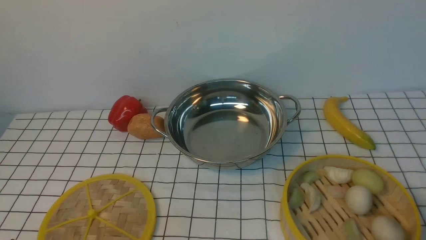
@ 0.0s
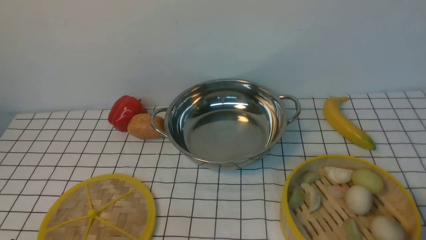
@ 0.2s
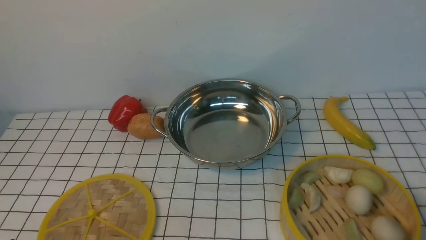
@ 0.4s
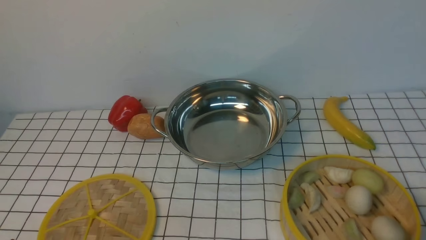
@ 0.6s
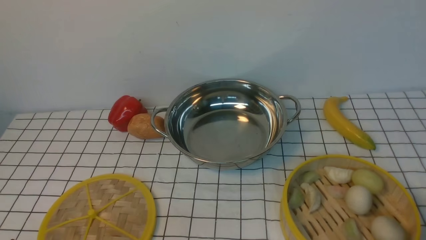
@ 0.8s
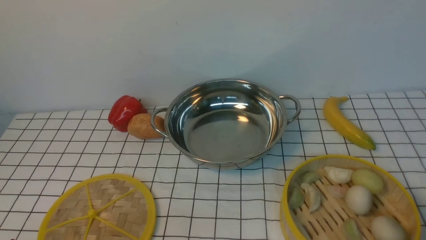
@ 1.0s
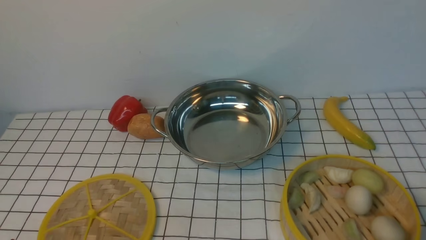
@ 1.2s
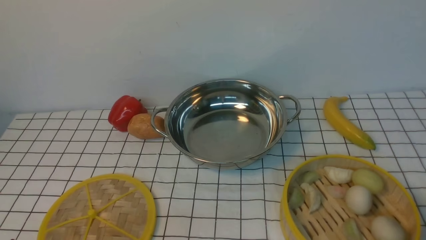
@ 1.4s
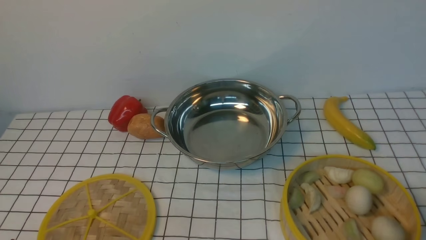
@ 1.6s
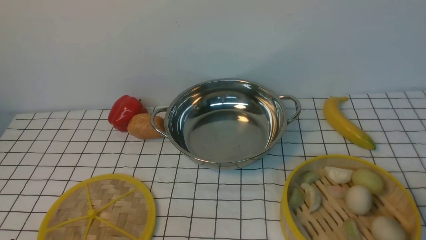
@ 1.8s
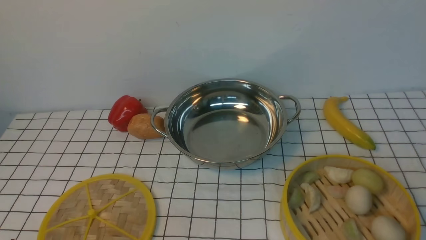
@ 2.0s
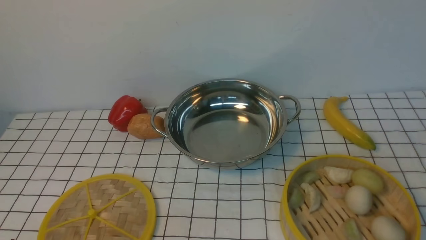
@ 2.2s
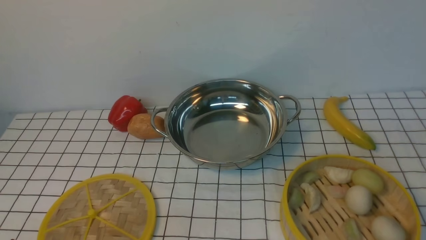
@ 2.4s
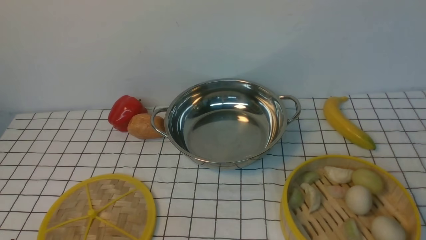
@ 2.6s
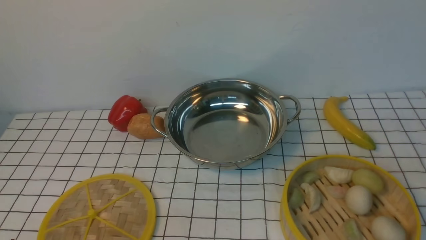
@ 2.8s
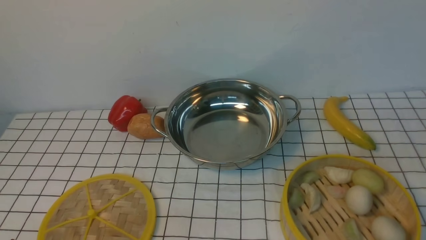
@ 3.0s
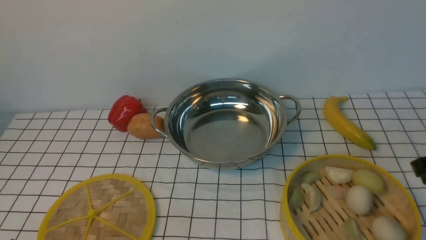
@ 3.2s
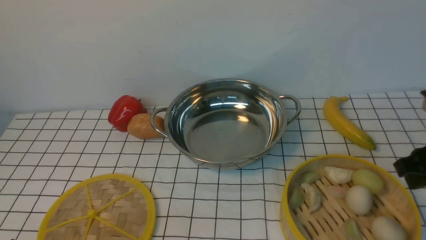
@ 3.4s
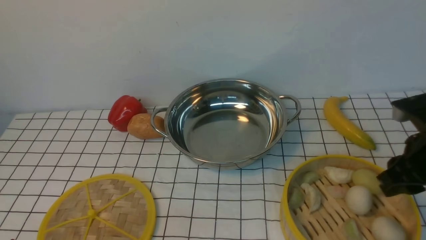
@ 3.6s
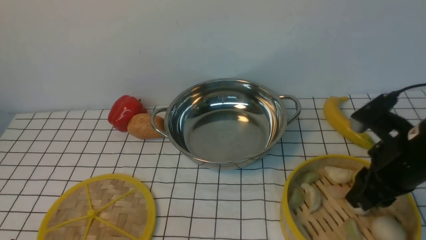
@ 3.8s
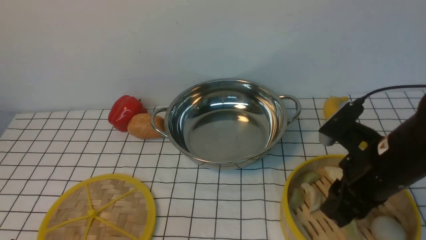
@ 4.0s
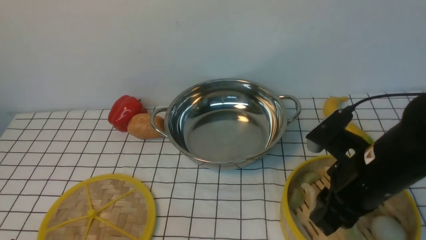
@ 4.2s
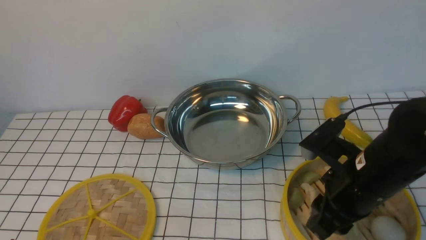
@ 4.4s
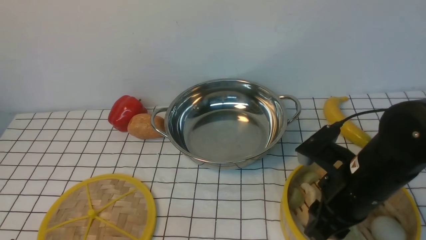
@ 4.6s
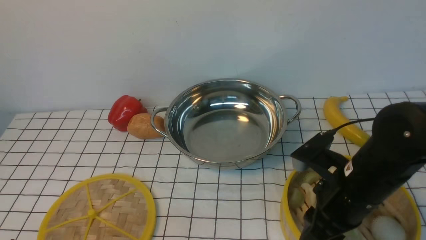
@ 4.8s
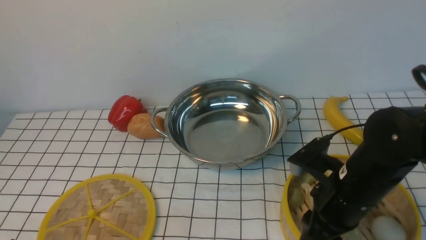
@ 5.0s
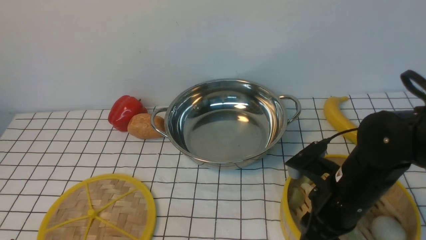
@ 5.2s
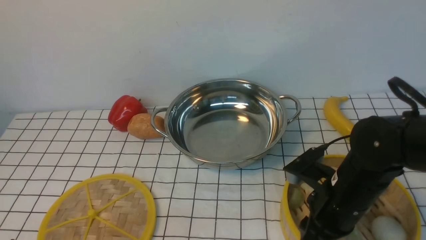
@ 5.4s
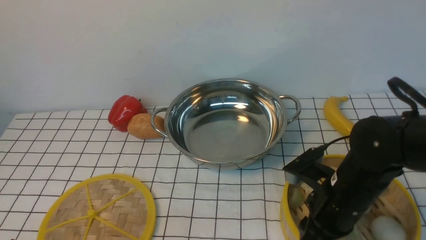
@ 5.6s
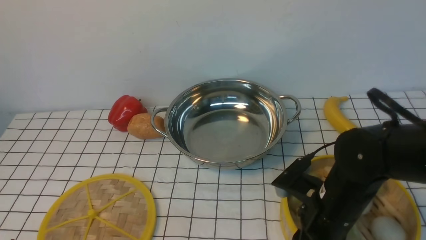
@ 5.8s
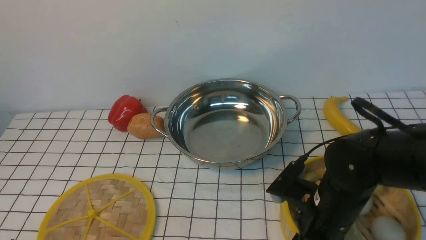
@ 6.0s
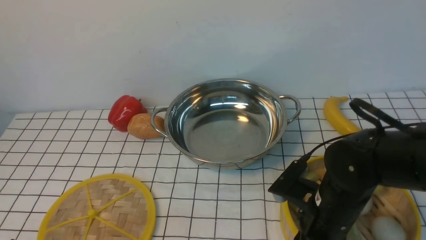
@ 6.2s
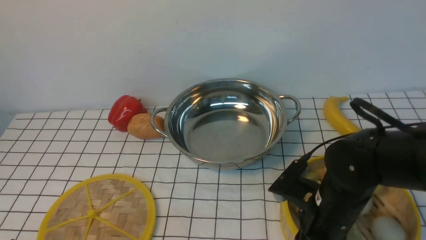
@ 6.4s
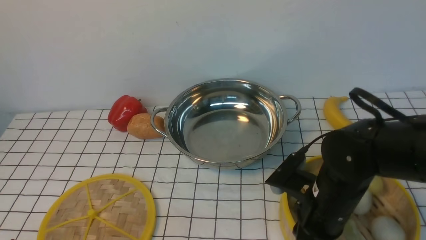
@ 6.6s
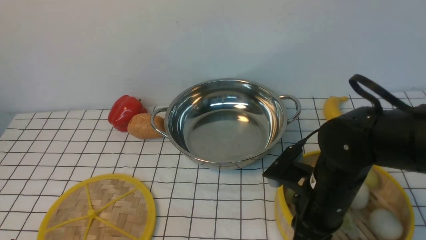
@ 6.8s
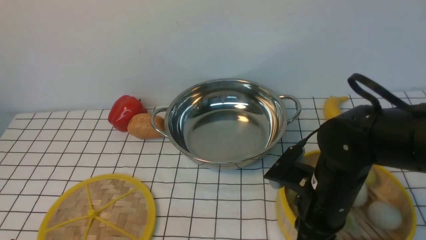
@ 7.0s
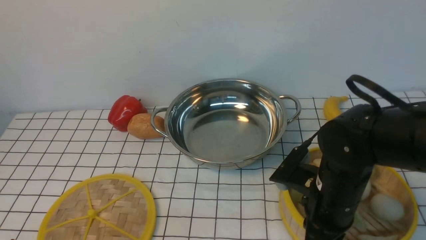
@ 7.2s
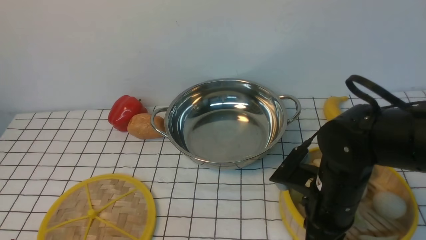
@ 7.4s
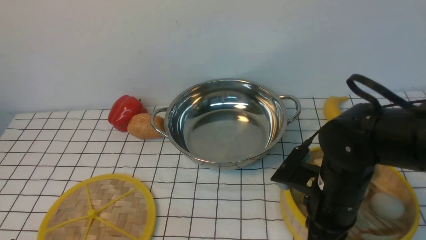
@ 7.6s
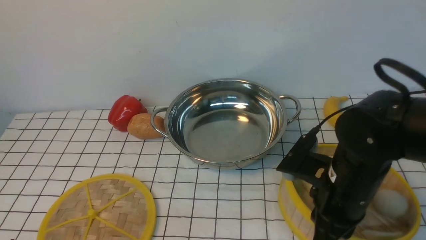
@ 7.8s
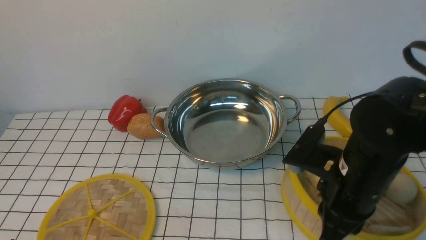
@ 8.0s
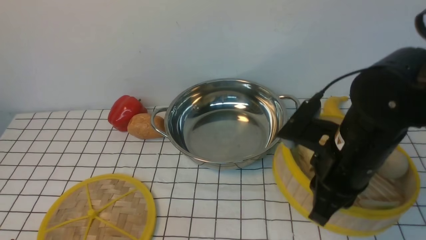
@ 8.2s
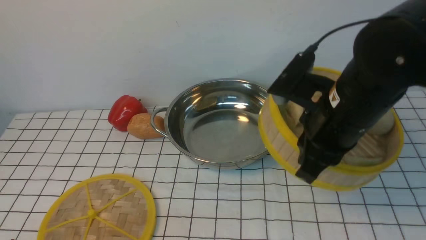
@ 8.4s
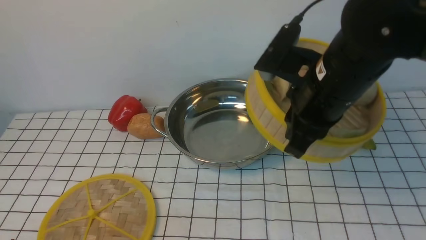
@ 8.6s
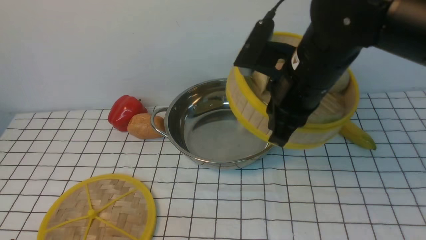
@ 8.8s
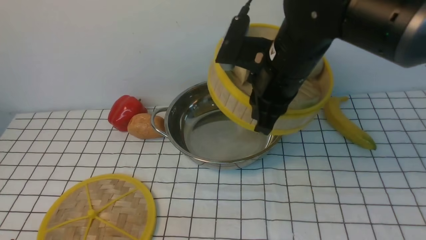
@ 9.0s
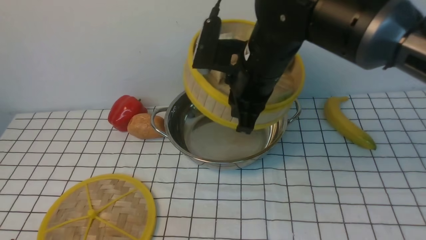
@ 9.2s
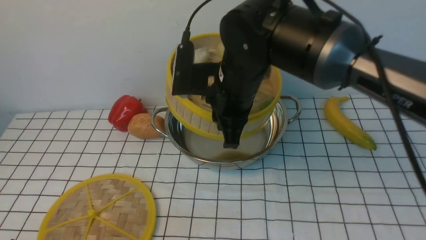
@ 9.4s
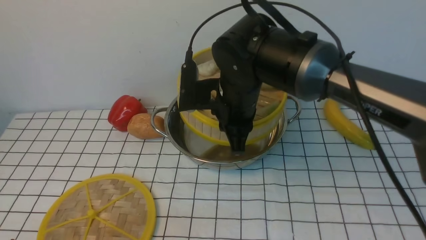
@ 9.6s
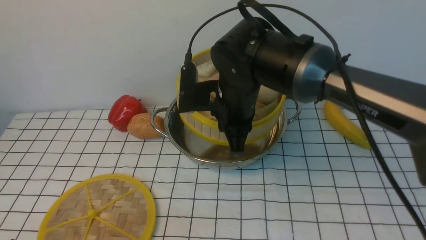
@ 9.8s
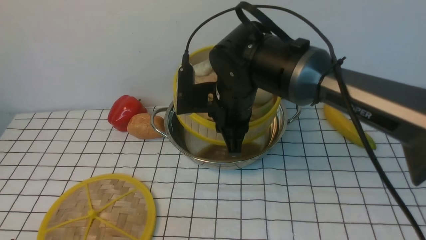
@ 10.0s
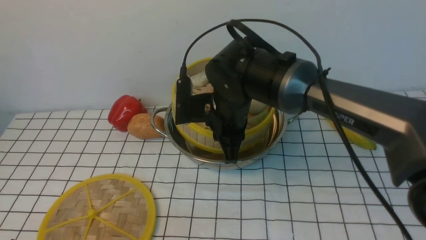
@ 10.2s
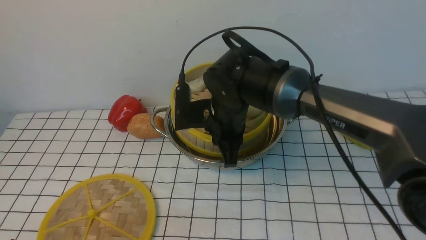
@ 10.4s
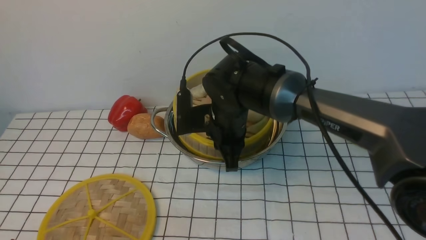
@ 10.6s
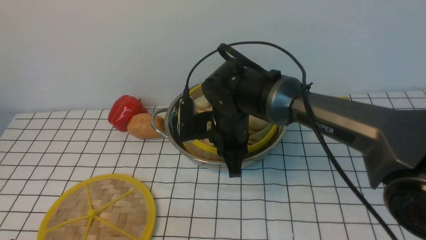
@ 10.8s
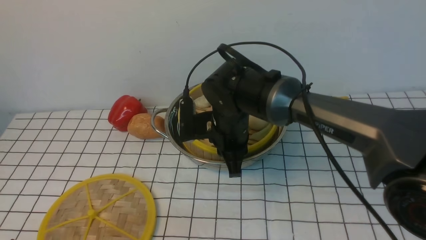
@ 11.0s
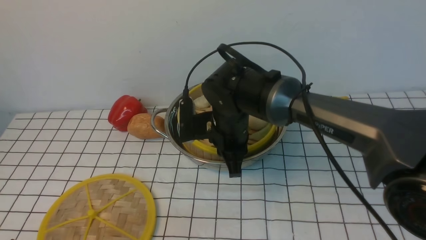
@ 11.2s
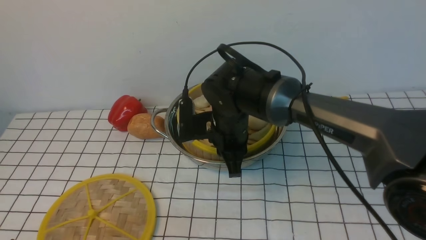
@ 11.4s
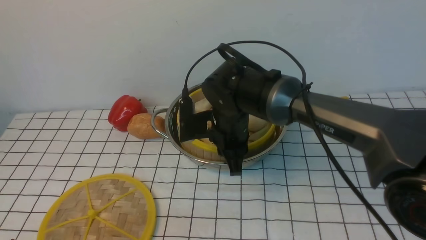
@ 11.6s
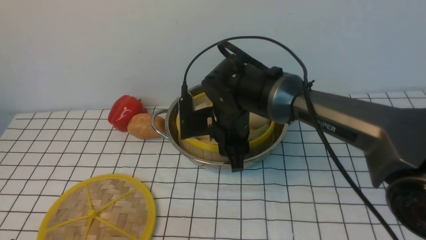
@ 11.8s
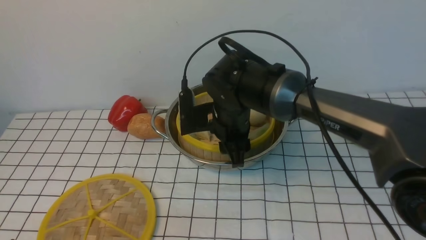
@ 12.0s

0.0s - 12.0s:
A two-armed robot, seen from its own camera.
Task of the whole recording: place the steamer in the pot on the white tablecloth, and put the lid on the steamer.
Step, 0.0s - 8.2s: use the right arm to lift the steamer closest to it.
3.0s - 4.4s: The right gripper shifts approximately 15 cm to the left and downward.
4.4s - 6.0s: The right gripper heads downward, covering some 5 cm.
6.0s - 7.6s: The right gripper closes its fingers.
7.6s - 9.0s: The right gripper moves upward, forward and to the left, about 15 cm.
9.0s - 10.4s: The right gripper moves downward and to the left, approximately 15 cm.
10.4s - 12.0s: The right gripper opens up.

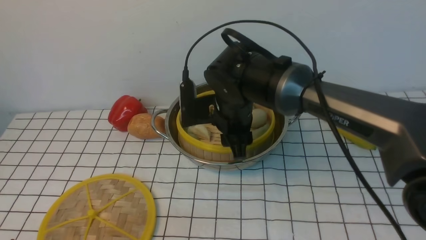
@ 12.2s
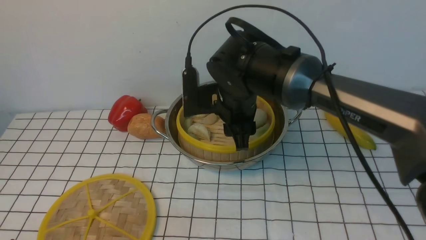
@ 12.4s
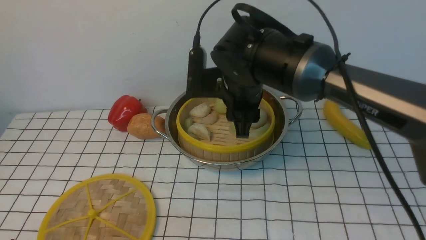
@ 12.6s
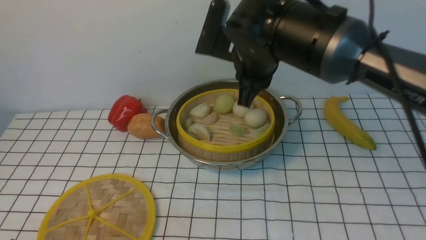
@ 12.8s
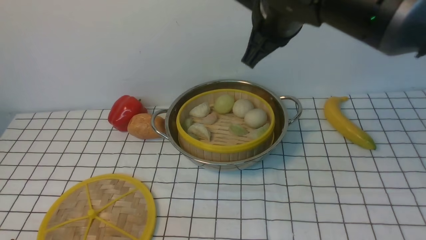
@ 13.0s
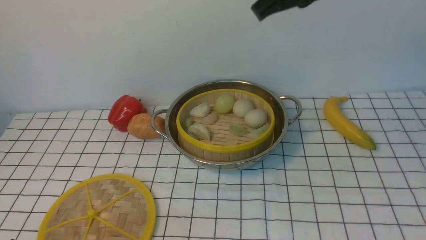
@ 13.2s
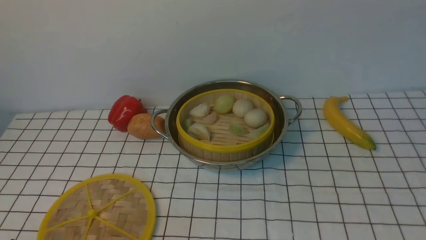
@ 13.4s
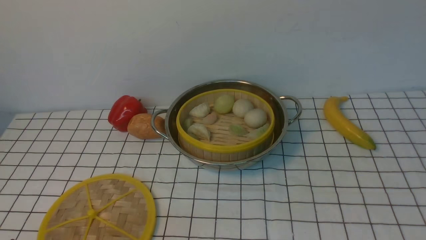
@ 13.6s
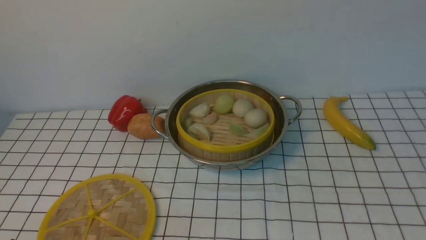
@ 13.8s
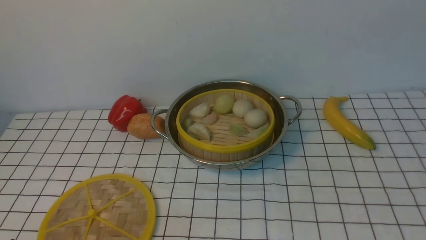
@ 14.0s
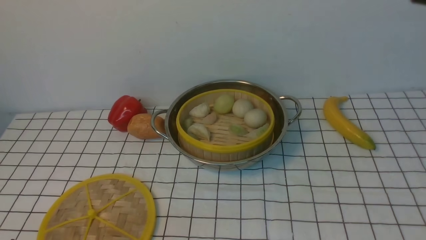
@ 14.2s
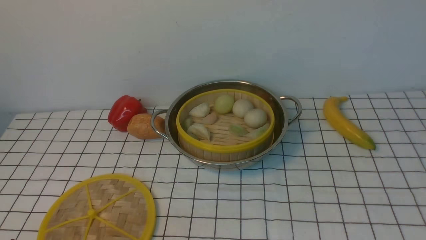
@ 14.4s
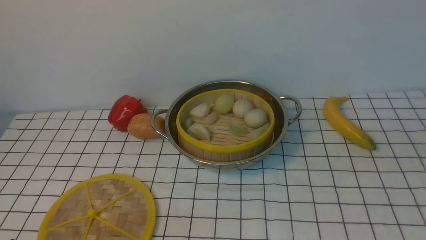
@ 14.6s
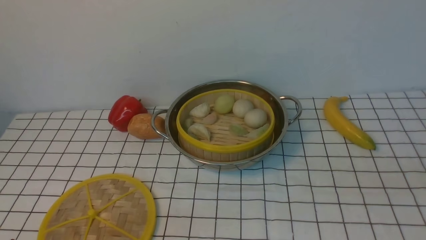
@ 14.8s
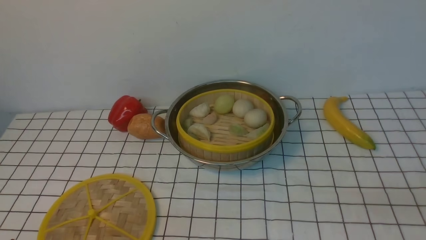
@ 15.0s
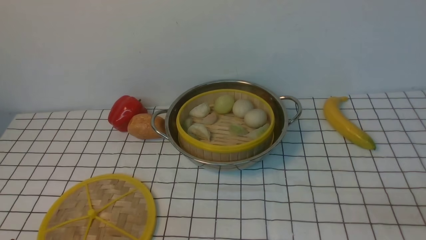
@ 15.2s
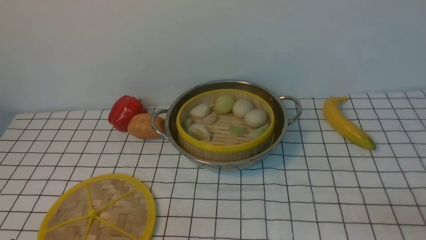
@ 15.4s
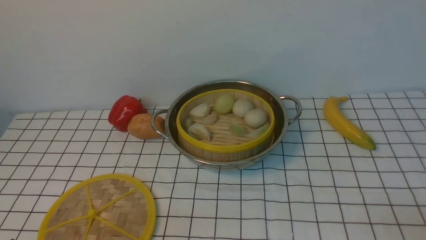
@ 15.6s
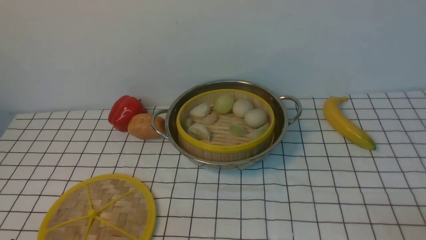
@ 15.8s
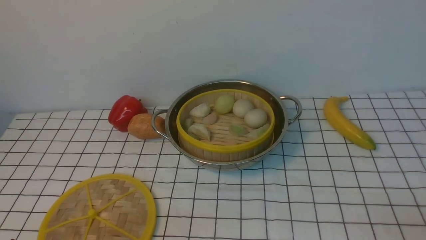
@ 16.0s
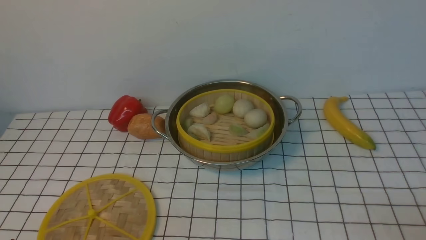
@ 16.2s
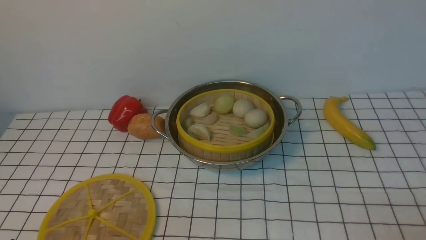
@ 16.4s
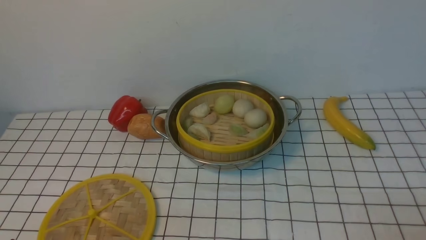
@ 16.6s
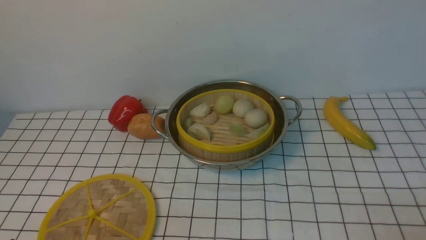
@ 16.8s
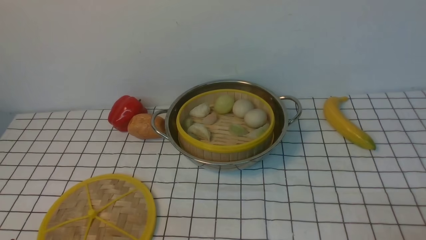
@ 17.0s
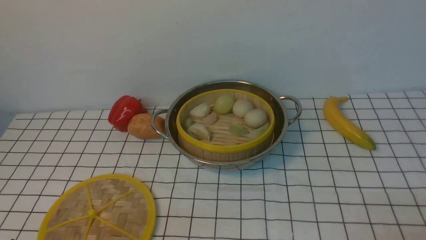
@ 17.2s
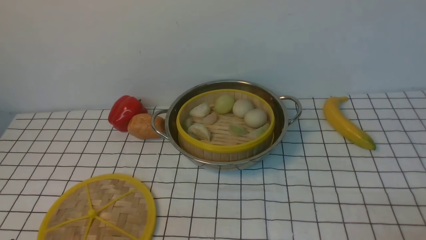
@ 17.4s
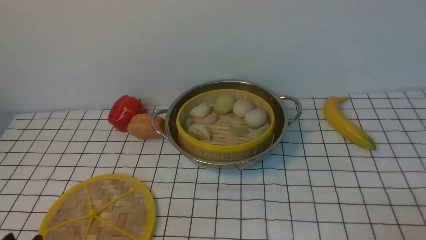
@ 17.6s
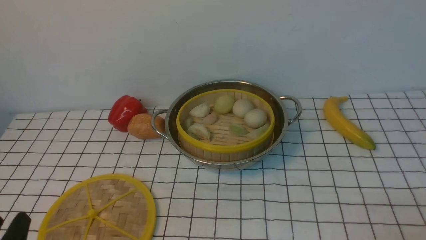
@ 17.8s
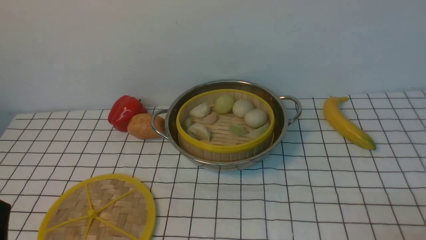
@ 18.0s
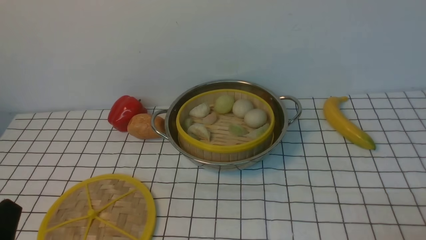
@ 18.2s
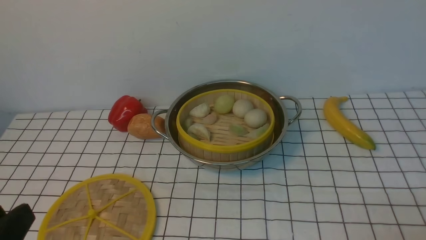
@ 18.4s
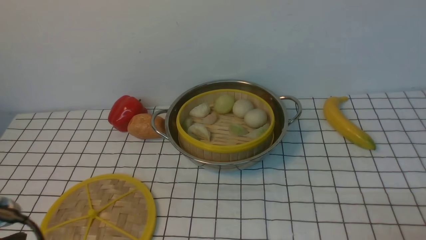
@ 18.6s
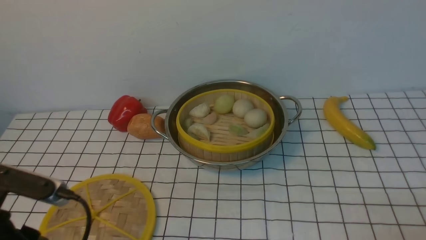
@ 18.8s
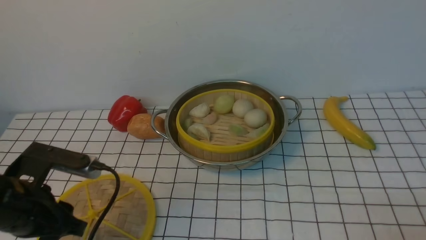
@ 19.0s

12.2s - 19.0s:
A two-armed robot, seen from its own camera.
Task of the whole recording: place the steamer in the pot on the white tablecloth, and put the lid on the steamer.
12.2s - 13.6s: The right gripper is displaced upward and to the right by roughly 30 cm, and closes its fingers.
17.6s - 19.0s: The left gripper goes roughly 15 cm forward.
